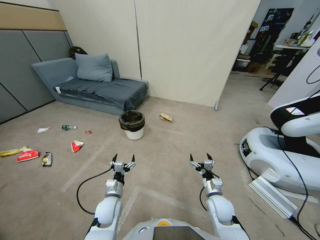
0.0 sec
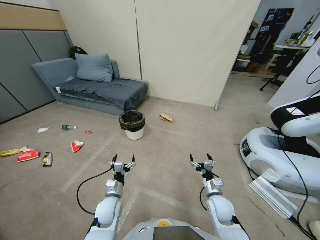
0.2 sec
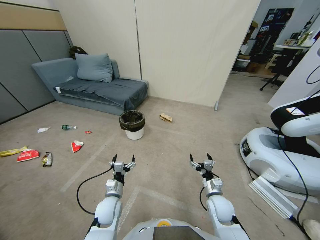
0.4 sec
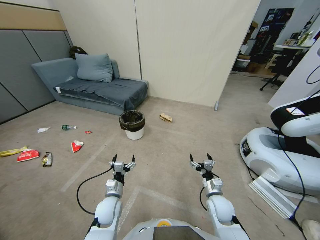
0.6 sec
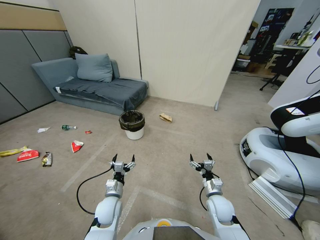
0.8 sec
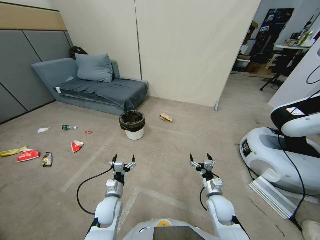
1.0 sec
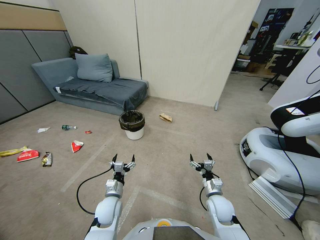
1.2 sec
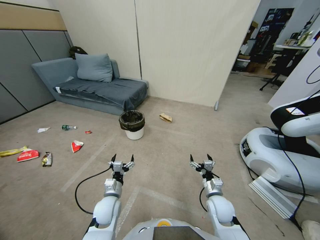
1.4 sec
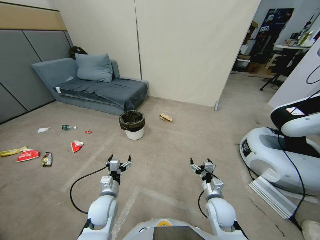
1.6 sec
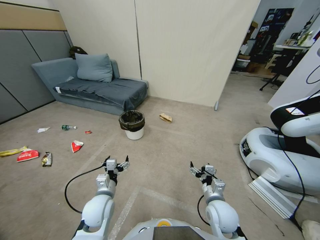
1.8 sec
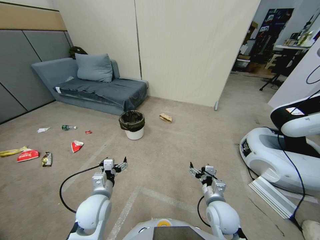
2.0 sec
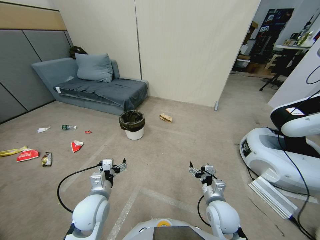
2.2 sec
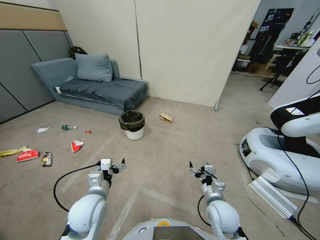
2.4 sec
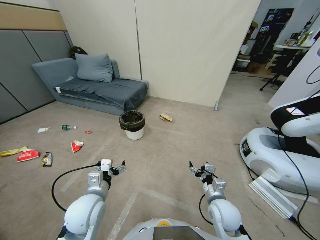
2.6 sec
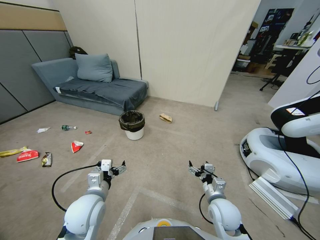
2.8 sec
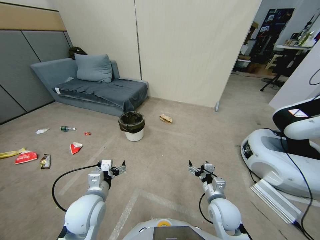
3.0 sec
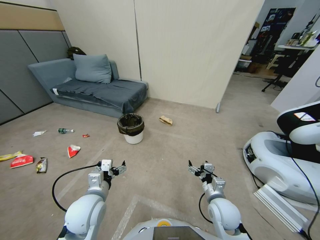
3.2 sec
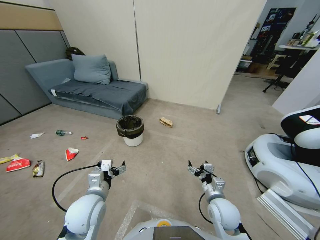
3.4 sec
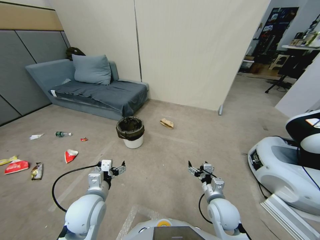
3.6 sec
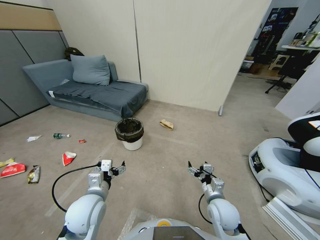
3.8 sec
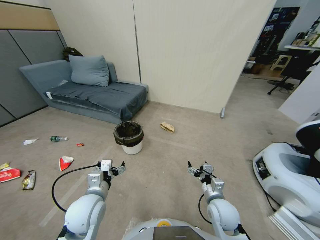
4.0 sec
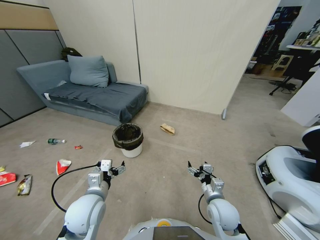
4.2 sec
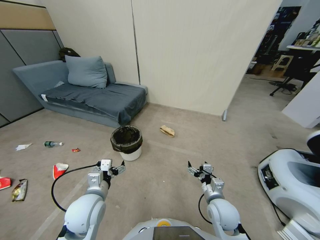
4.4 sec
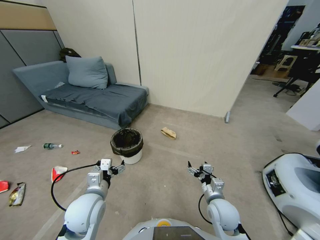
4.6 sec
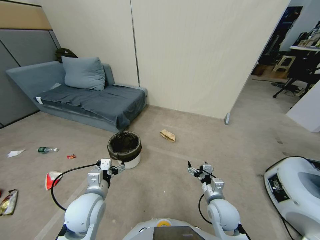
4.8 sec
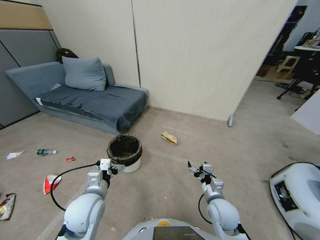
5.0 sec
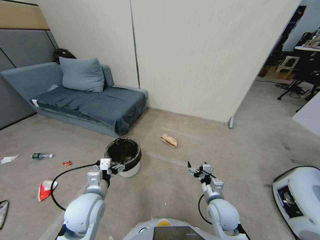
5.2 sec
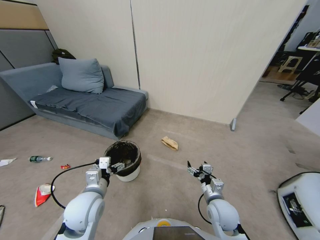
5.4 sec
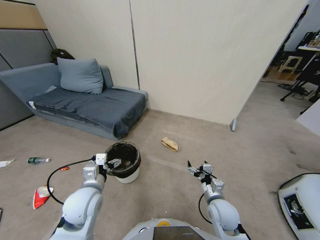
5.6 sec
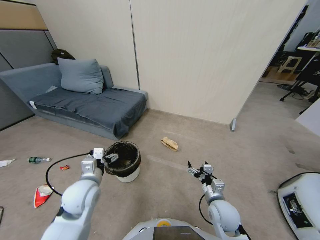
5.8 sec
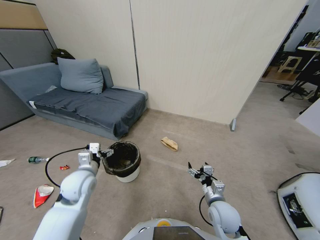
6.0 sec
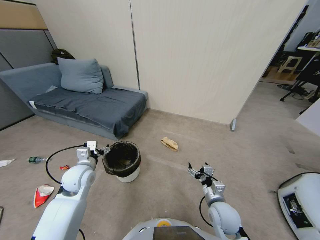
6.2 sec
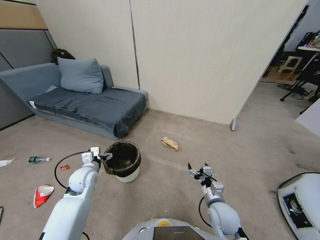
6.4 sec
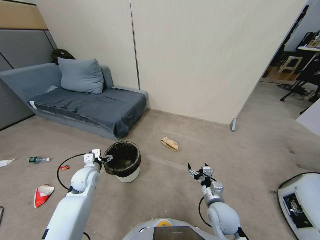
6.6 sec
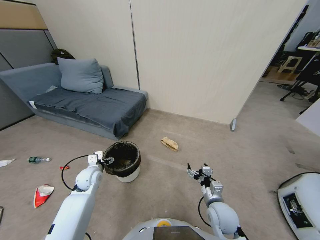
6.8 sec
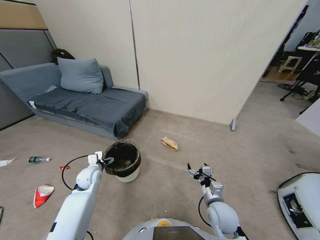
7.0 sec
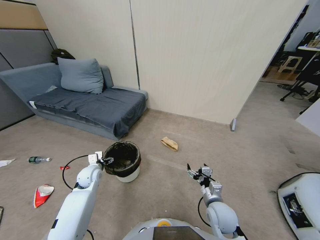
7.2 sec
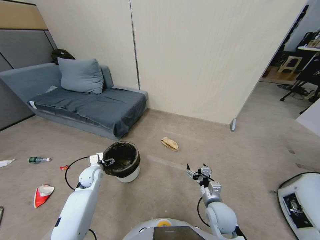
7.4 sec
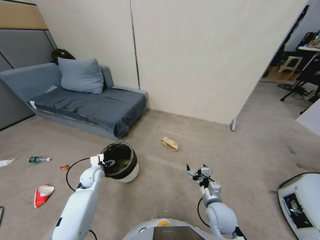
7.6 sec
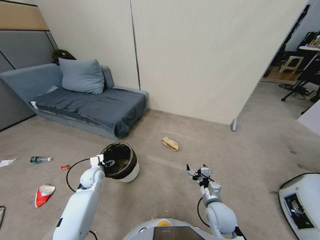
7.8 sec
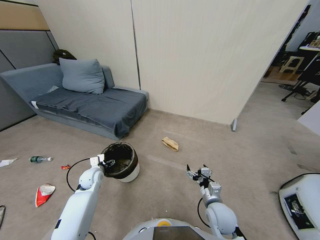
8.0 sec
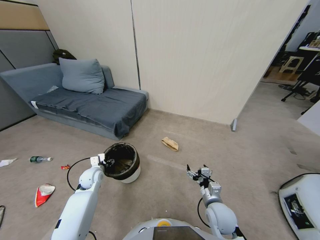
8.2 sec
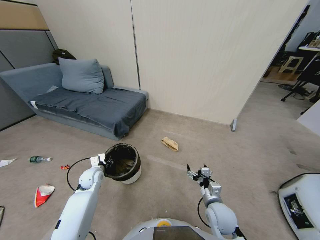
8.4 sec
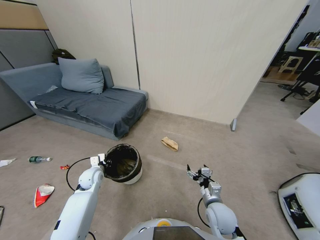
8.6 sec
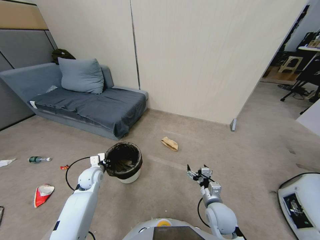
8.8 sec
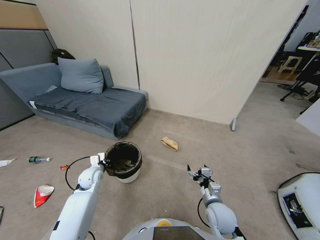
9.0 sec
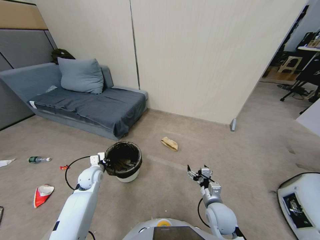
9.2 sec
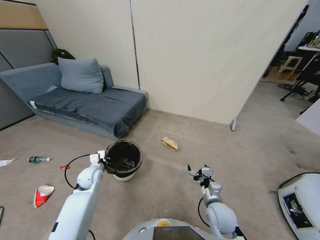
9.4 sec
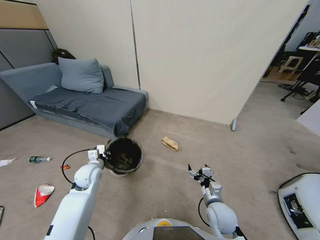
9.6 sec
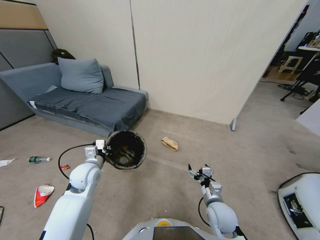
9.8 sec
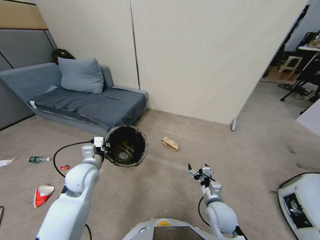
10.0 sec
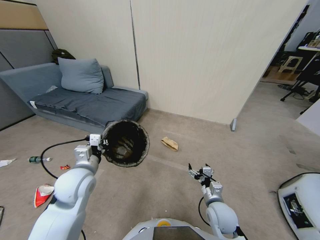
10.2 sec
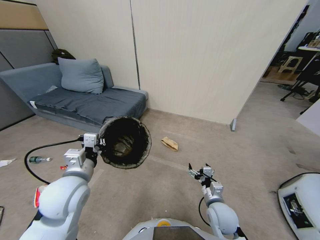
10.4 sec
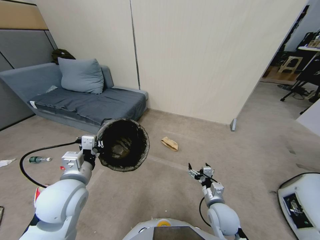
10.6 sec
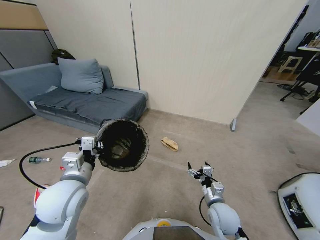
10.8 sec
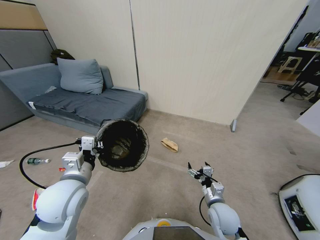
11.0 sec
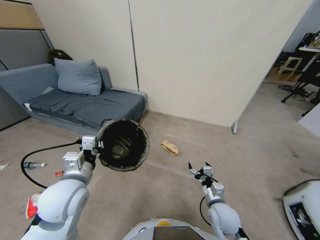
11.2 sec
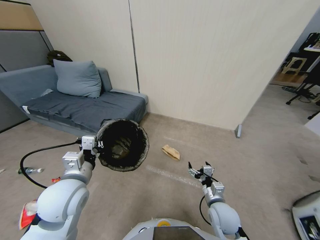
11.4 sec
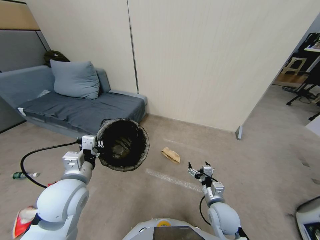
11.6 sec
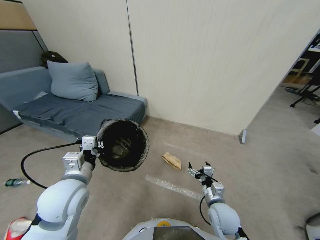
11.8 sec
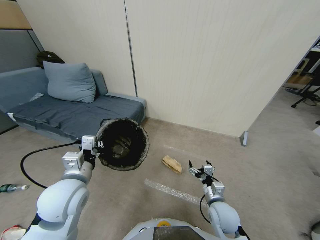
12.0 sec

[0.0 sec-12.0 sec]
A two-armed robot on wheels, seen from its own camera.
Task of the whole recording: Pick up the trash bin, then pick up the garbage from the floor and place it into the trash bin.
1.6 sec to 3.0 sec: The left gripper is displaced upward by roughly 10 cm.
4.4 sec to 6.0 sec: The left gripper goes roughly 15 cm forward and to the left.
6.0 sec to 7.6 sec: The left gripper heads downward and forward, covering approximately 15 cm.
7.6 sec to 9.0 sec: The left gripper closes up.
9.0 sec to 10.4 sec: The left gripper heads upward and backward, covering roughly 25 cm.

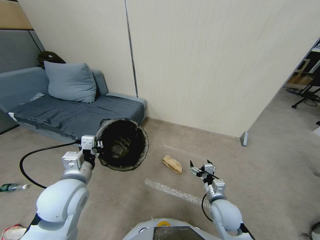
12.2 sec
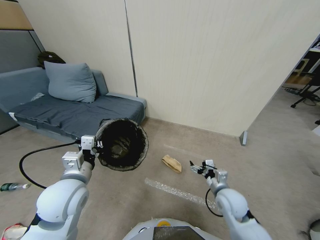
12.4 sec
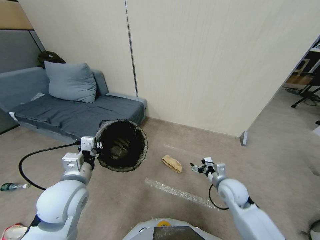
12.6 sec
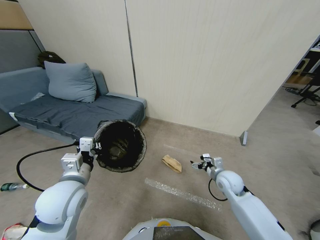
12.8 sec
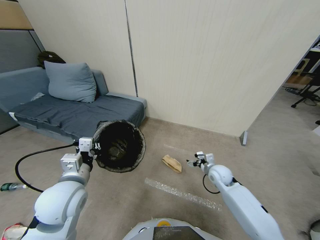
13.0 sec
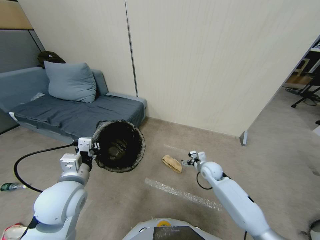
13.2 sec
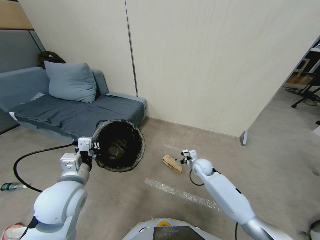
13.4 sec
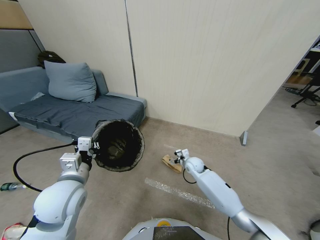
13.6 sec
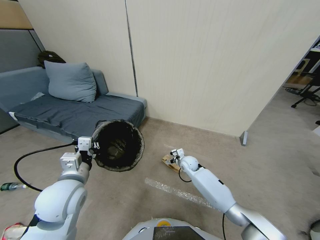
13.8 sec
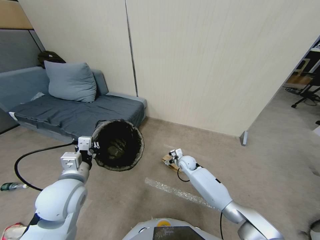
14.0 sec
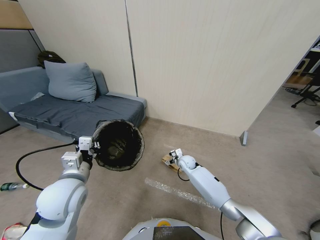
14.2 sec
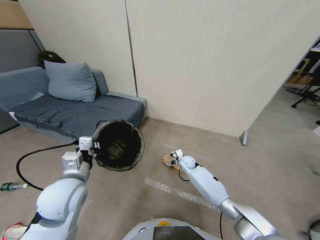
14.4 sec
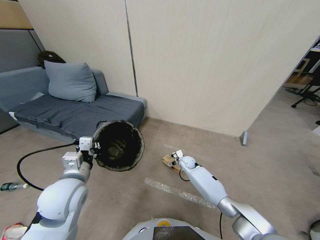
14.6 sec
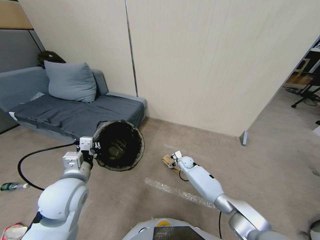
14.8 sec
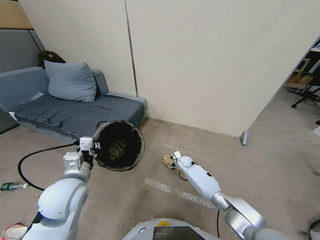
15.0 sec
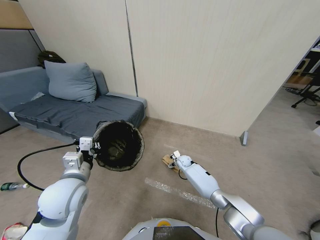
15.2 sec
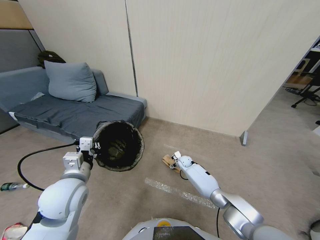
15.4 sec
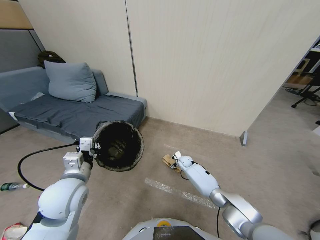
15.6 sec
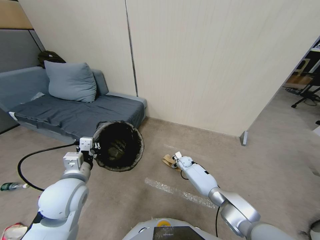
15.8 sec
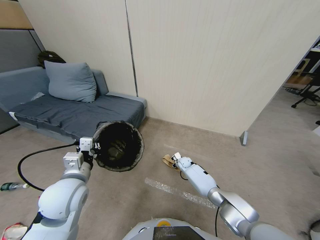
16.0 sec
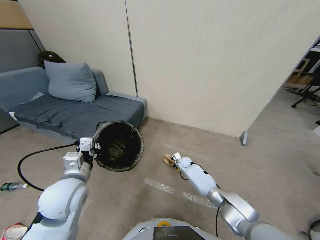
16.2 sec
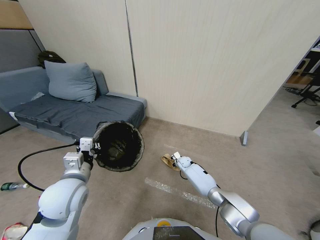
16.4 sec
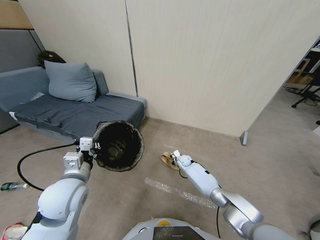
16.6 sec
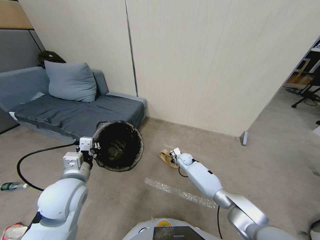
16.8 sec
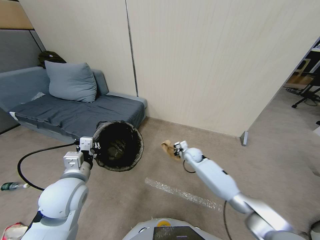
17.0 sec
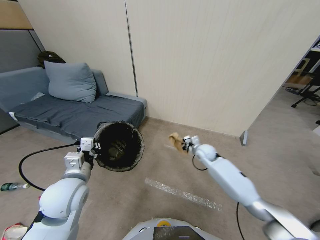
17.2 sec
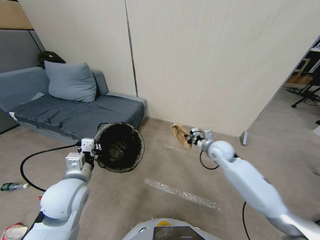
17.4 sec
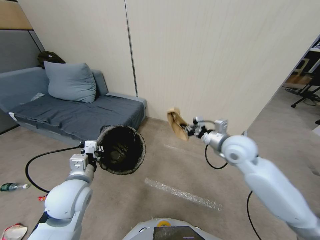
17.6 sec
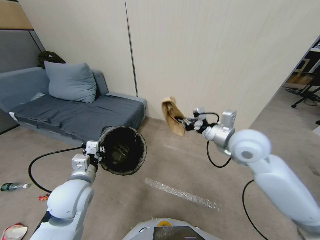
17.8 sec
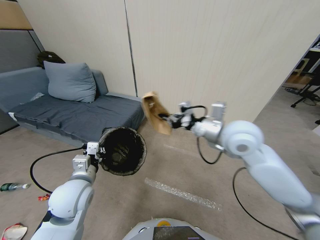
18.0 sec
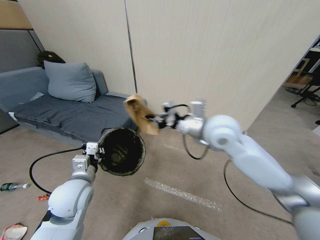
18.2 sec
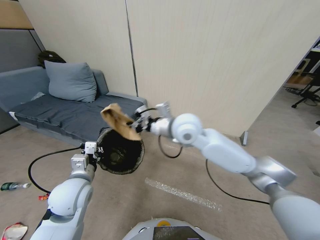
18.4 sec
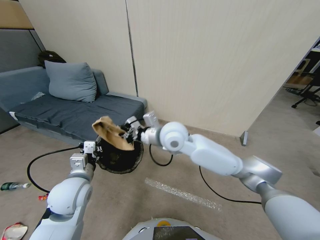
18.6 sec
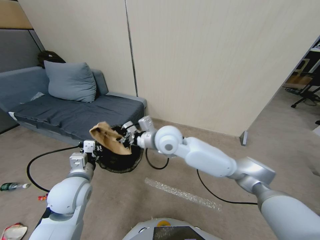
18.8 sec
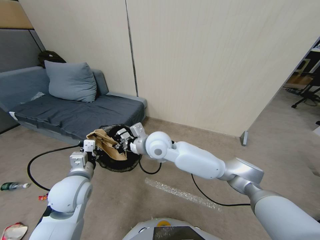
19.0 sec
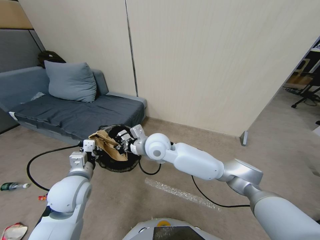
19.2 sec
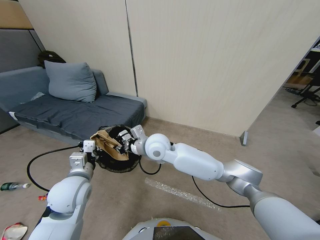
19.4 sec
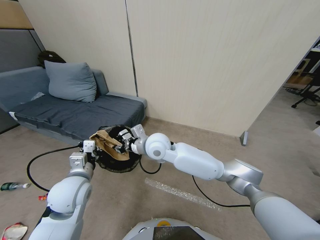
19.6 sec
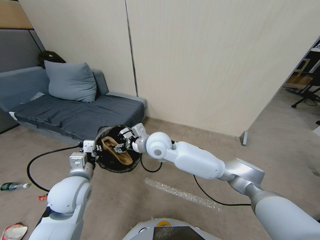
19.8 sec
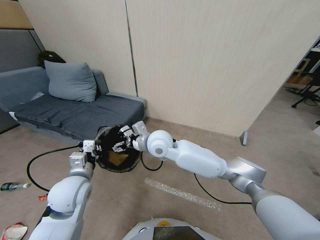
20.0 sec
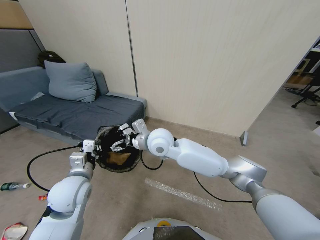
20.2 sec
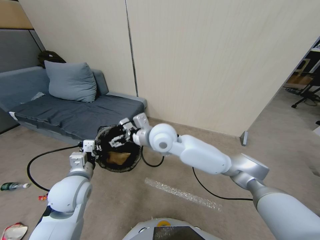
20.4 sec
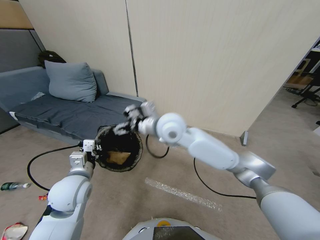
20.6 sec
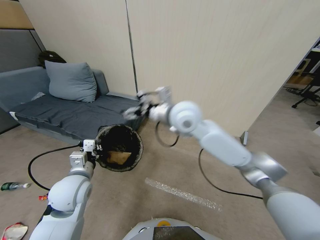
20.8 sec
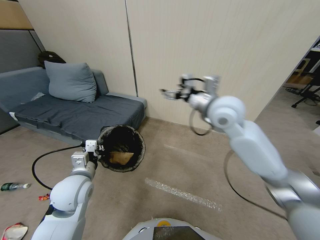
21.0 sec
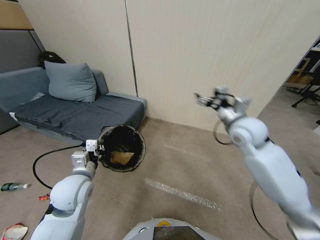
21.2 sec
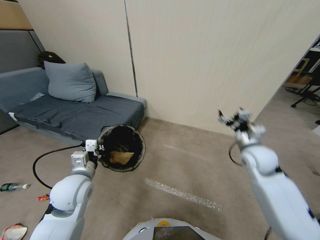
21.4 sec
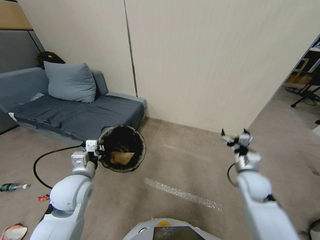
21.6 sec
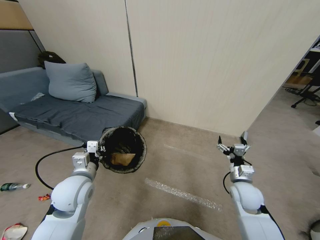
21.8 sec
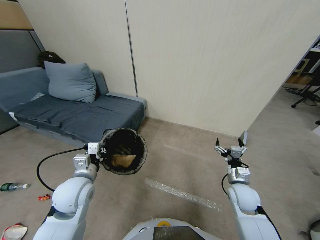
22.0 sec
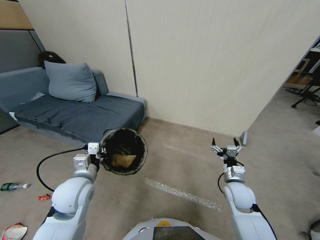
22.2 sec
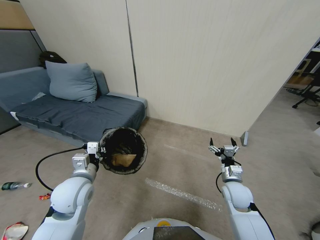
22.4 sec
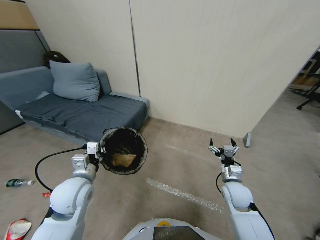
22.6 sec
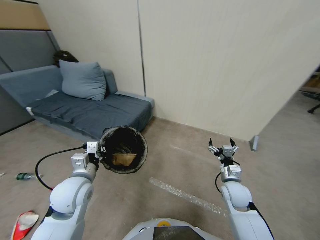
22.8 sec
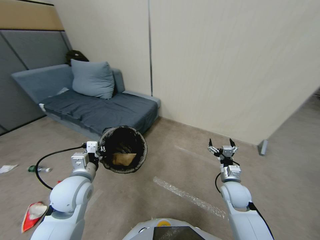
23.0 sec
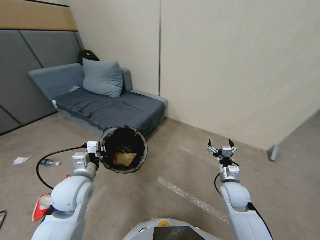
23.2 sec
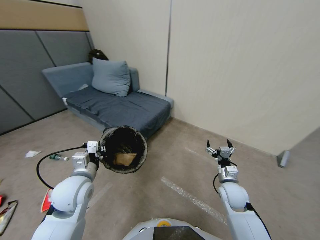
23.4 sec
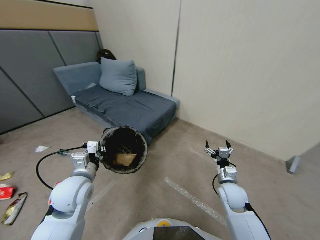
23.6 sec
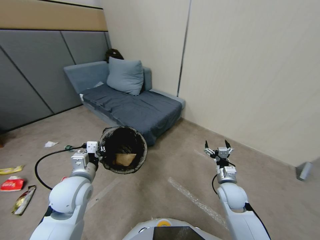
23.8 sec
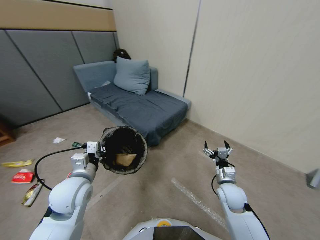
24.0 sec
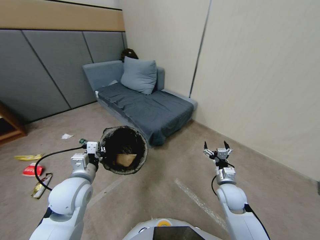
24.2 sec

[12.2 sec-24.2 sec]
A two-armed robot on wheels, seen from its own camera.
Task of the whole recording: Pick up the trash bin, then pick up the garbage from the floor and place it into the trash bin.
12.2 sec to 13.8 sec: The right gripper heads forward, to the left and downward, covering about 25 cm.
13.8 sec to 15.2 sec: The right gripper heads downward and forward, covering about 10 cm.
15.2 sec to 16.6 sec: The right gripper closes its fingers.
16.6 sec to 18.2 sec: The right gripper travels upward by approximately 40 cm.
18.2 sec to 19.8 sec: The right gripper goes about 15 cm to the left and downward, and opens up.
19.8 sec to 21.2 sec: The right gripper shifts approximately 35 cm to the right.
21.2 sec to 22.6 sec: The right gripper shifts about 20 cm downward and backward.
